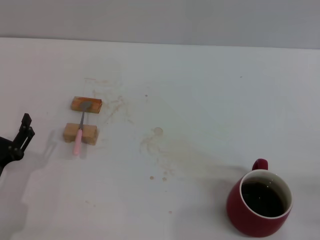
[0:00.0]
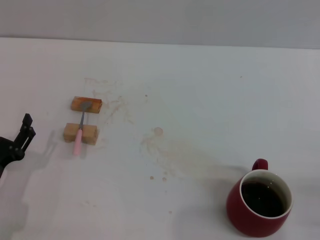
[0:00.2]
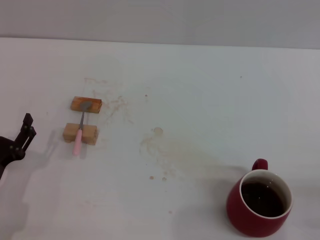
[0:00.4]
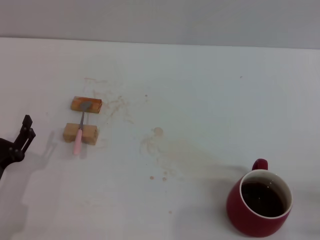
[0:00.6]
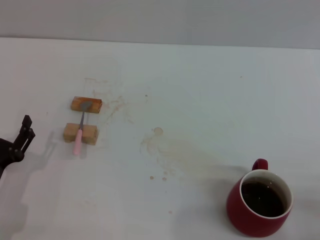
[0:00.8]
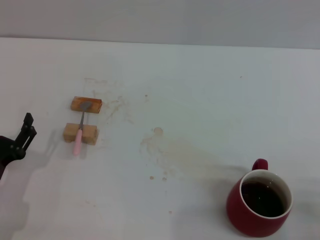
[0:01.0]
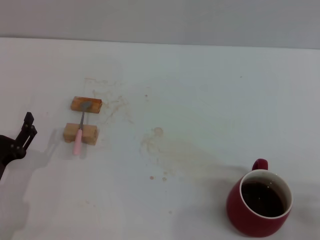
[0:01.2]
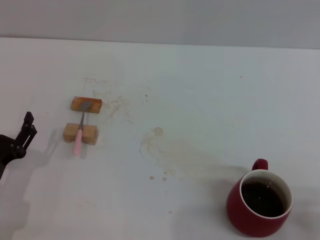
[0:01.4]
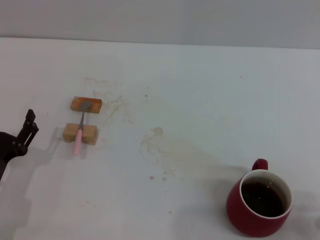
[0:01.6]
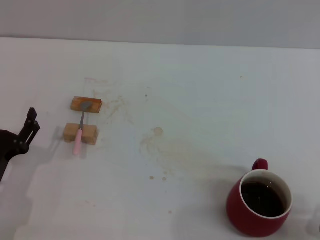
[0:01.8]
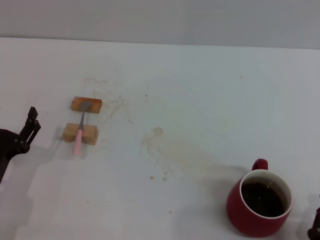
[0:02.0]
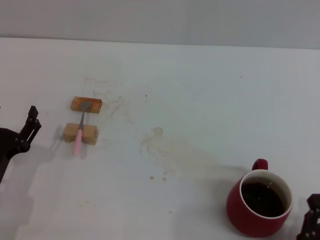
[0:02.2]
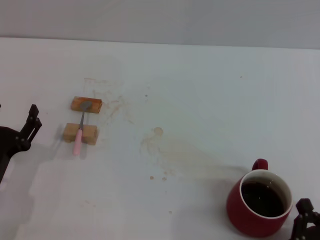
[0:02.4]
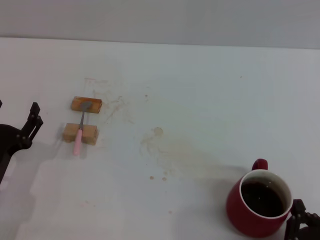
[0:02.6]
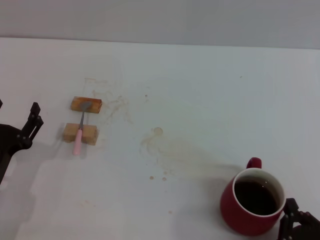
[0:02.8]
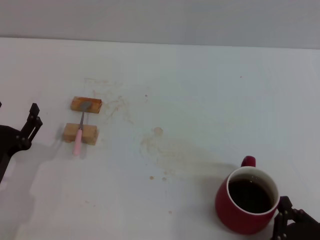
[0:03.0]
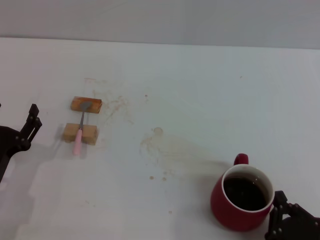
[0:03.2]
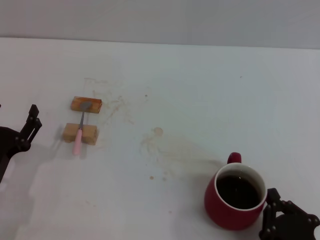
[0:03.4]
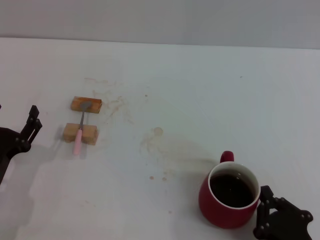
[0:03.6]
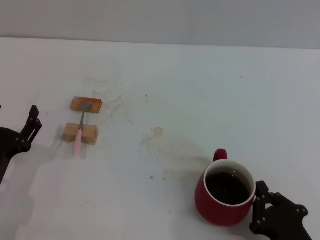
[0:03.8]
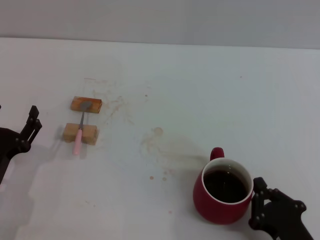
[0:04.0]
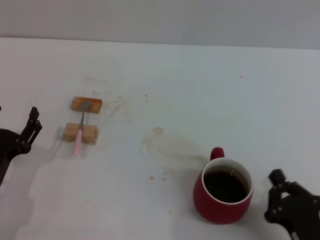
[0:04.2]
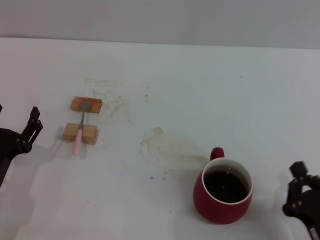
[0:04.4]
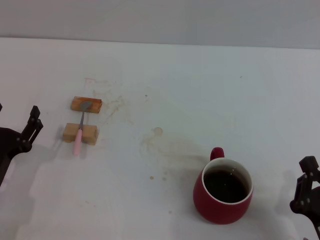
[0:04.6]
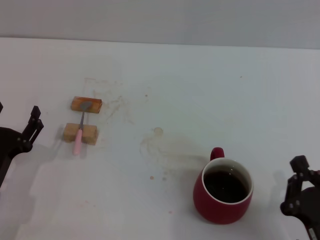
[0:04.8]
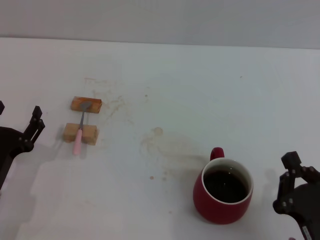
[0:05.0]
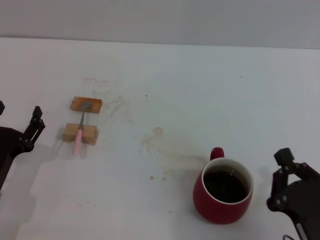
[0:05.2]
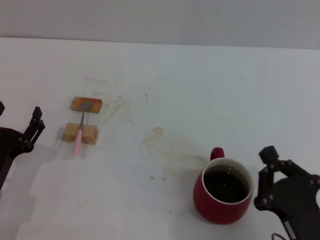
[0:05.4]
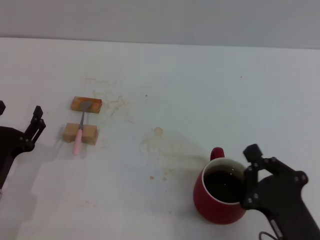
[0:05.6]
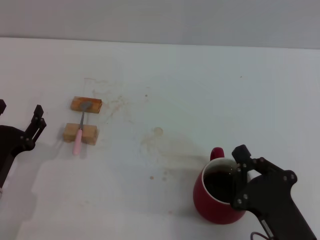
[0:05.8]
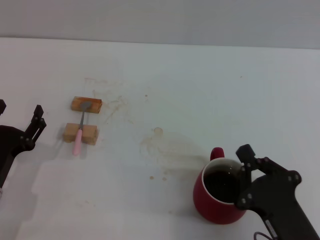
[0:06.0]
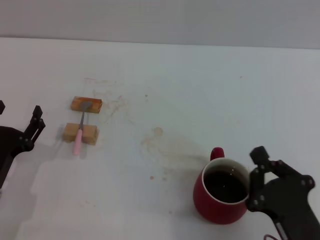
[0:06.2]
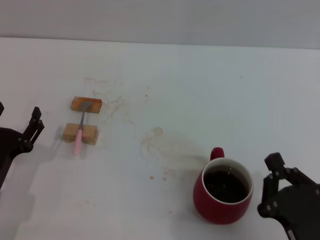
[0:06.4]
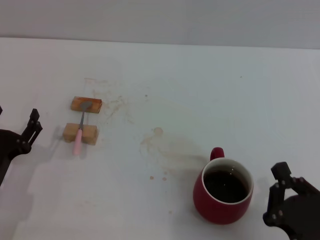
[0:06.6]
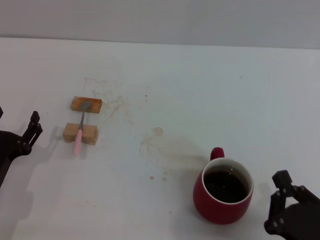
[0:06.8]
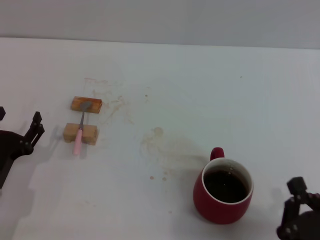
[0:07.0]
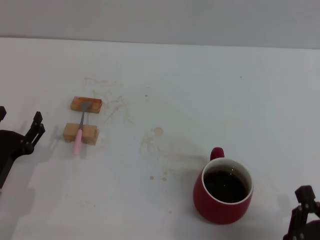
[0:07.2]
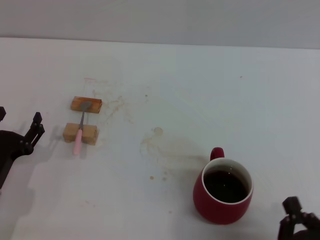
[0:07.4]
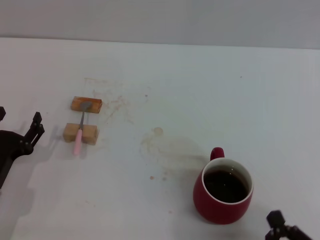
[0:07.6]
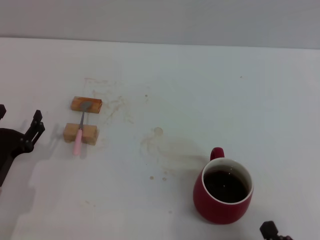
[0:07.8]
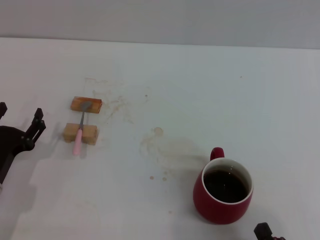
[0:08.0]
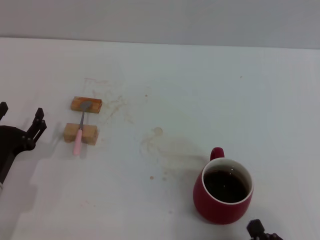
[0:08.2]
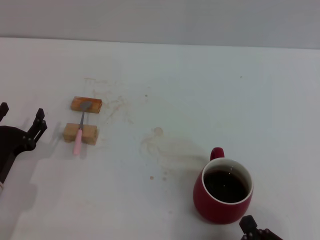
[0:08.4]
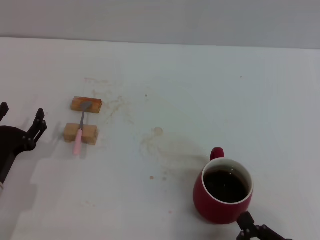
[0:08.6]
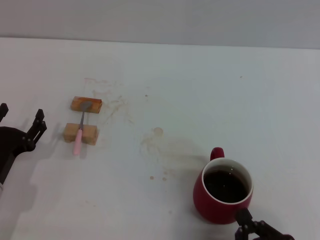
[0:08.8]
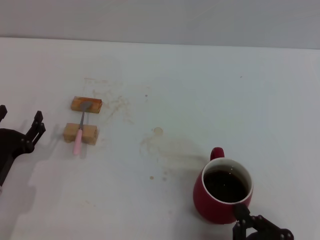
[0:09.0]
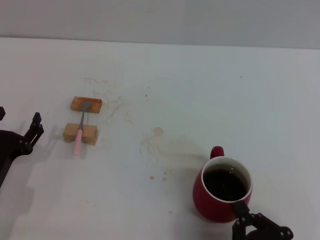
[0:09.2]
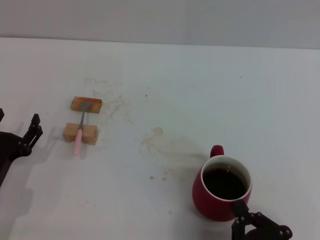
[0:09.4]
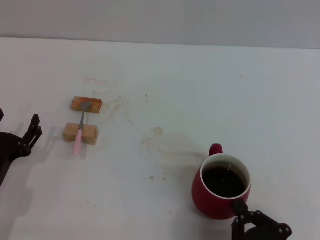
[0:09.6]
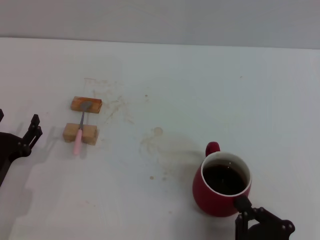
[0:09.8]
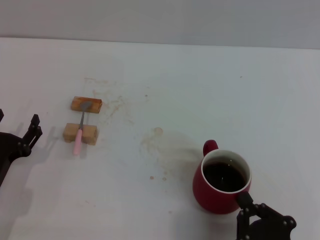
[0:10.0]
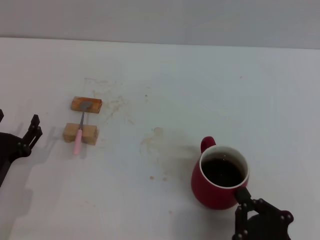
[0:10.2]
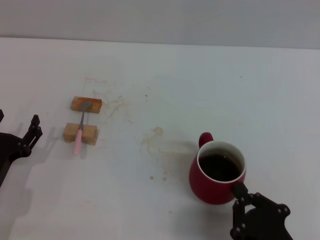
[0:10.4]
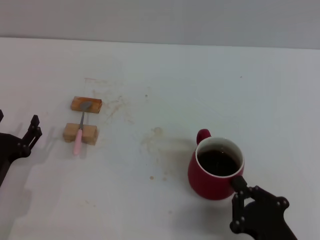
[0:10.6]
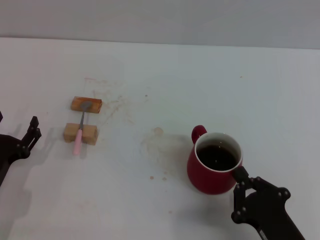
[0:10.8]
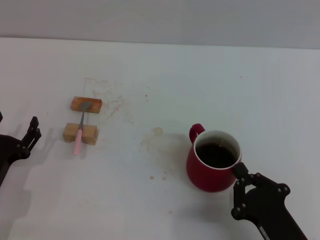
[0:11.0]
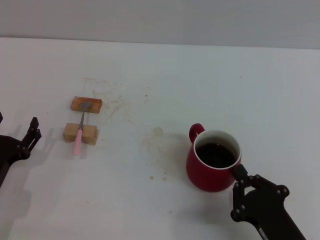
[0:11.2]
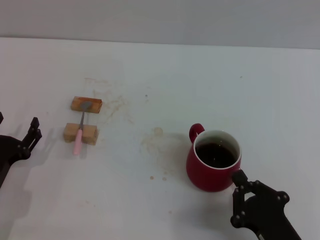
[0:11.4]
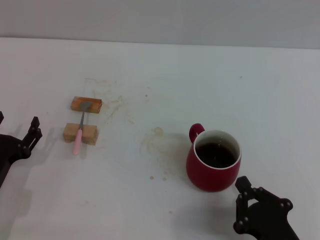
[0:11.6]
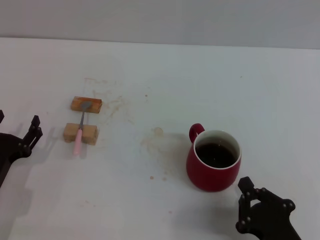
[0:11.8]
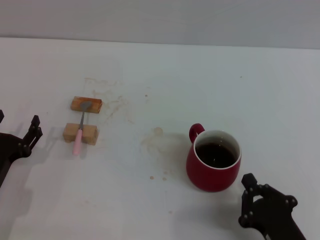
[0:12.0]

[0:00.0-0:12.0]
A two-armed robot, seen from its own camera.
Task of the whole recording: Move the red cup to the center, lift the pink spoon, stir it three times in the cup, and put the spoon into the cup.
0:00.0 to 0:01.6: The right gripper shifts approximately 10 cm to the left and backward.
0:01.6 to 0:03.0: The grippers stay close to where they were, moving slightly.
0:03.0 to 0:04.4: The grippers make only small movements.
0:04.4 to 0:06.0: The right gripper changes place by about 5 cm.
0:06.0 to 0:07.6: The right gripper travels backward by about 10 cm.
0:07.6 to 0:10.4: The grippers make only small movements.
0:10.4 to 0:12.0: There are only small adjustments of the grippers.

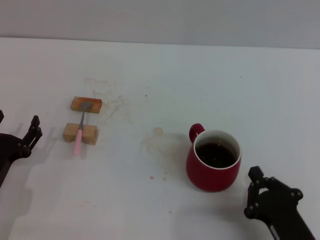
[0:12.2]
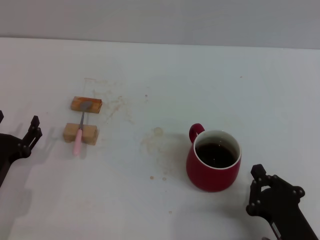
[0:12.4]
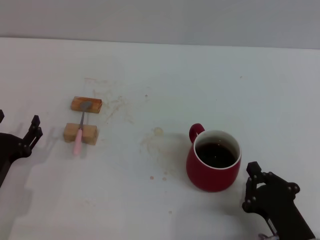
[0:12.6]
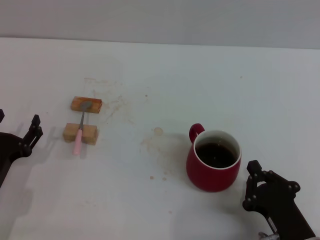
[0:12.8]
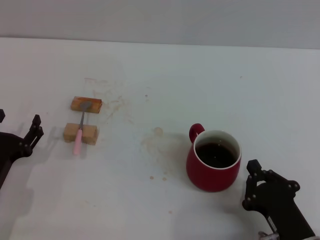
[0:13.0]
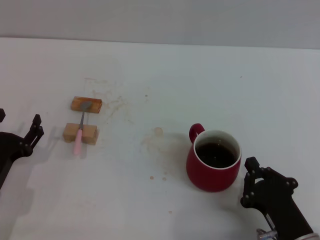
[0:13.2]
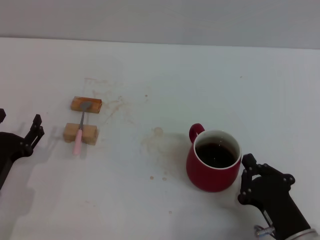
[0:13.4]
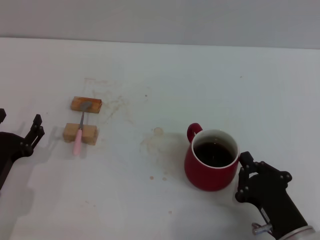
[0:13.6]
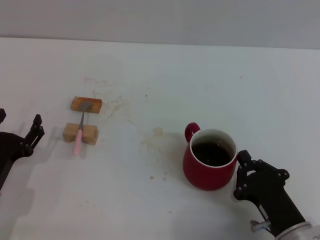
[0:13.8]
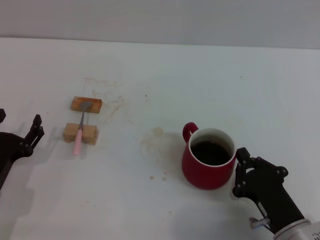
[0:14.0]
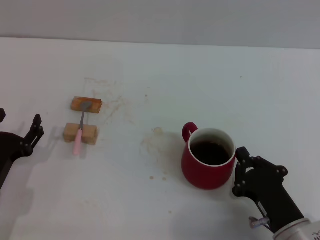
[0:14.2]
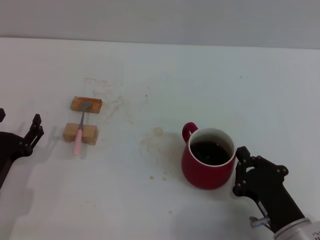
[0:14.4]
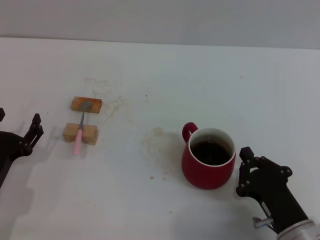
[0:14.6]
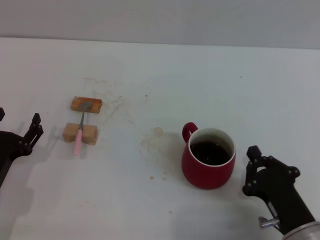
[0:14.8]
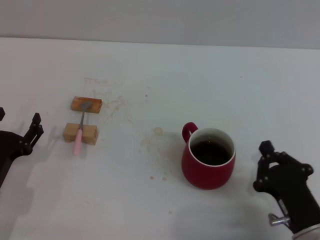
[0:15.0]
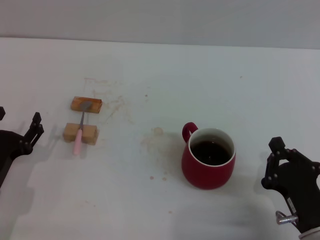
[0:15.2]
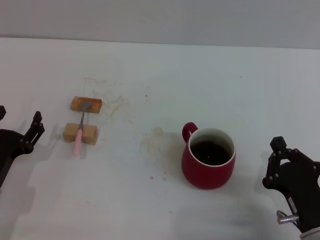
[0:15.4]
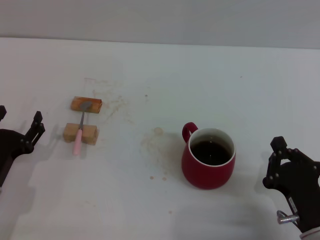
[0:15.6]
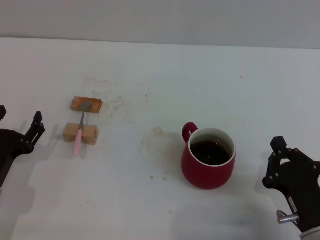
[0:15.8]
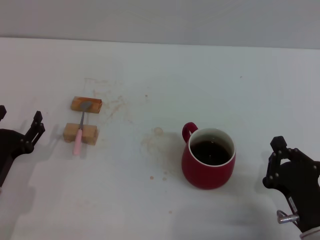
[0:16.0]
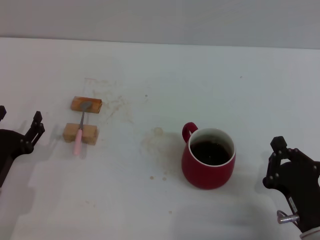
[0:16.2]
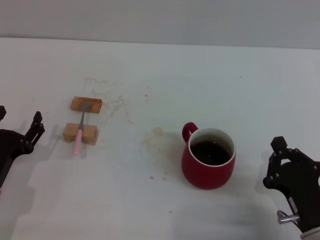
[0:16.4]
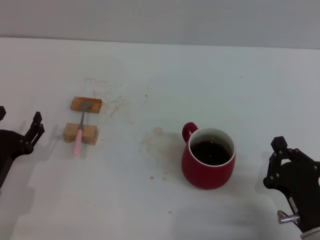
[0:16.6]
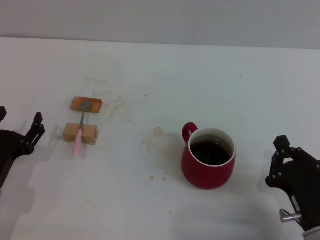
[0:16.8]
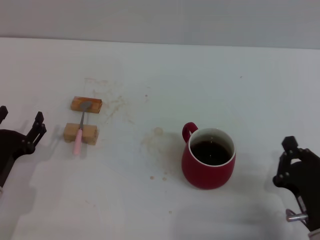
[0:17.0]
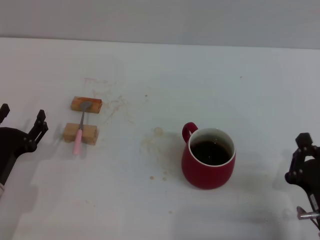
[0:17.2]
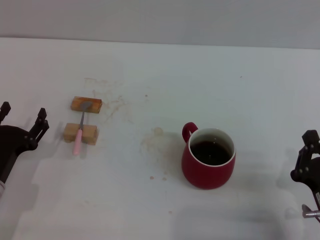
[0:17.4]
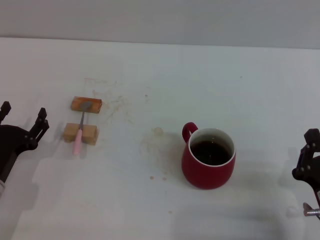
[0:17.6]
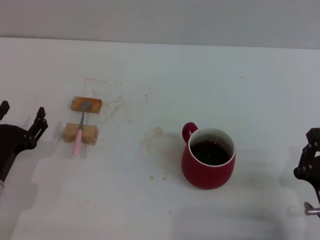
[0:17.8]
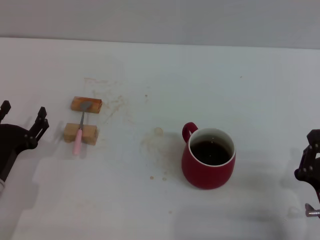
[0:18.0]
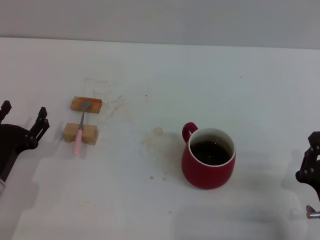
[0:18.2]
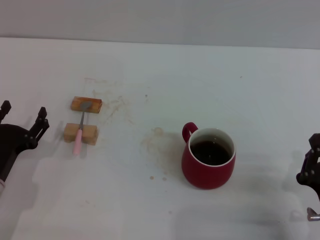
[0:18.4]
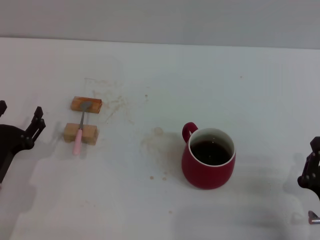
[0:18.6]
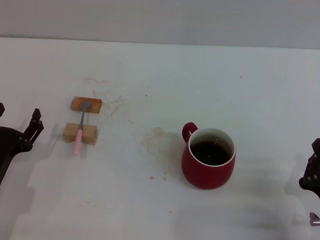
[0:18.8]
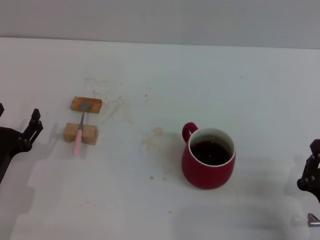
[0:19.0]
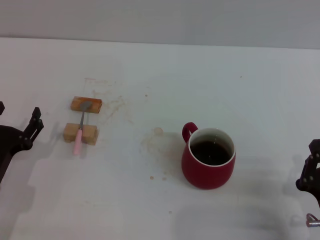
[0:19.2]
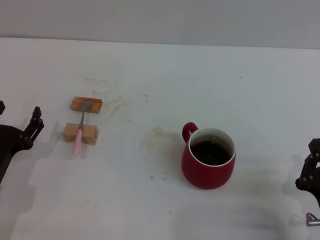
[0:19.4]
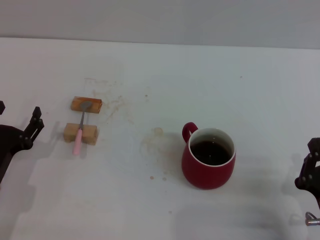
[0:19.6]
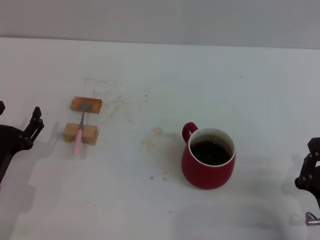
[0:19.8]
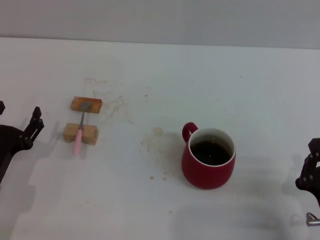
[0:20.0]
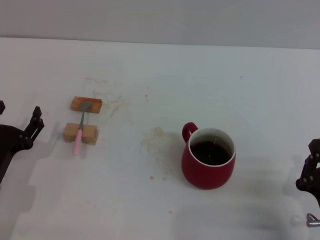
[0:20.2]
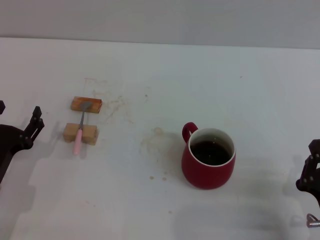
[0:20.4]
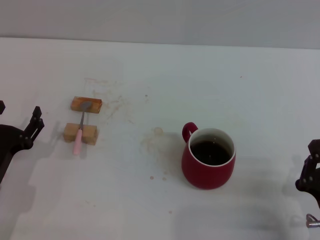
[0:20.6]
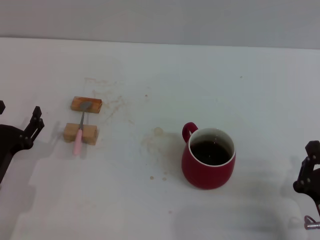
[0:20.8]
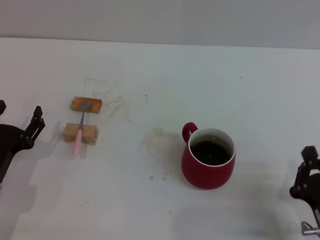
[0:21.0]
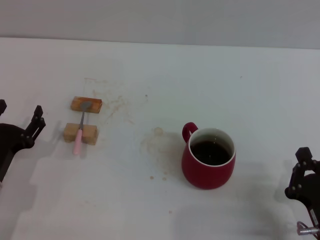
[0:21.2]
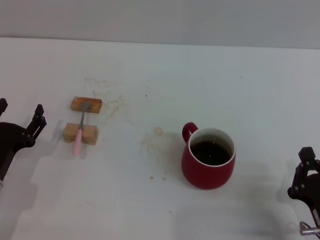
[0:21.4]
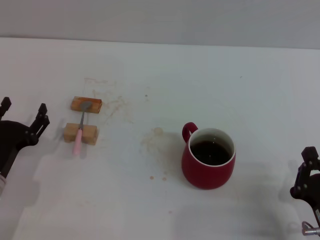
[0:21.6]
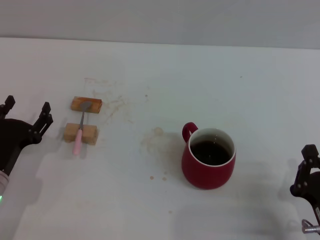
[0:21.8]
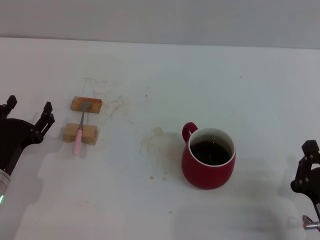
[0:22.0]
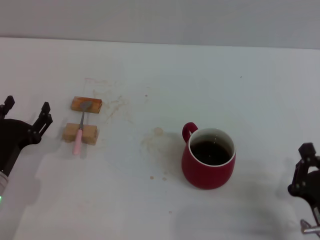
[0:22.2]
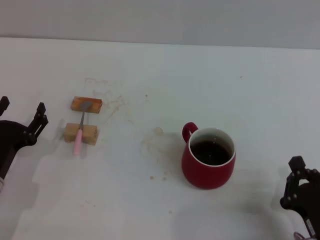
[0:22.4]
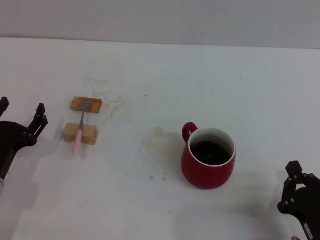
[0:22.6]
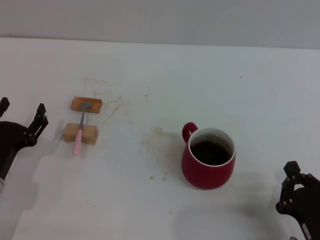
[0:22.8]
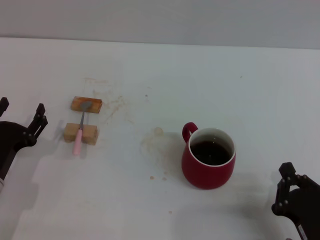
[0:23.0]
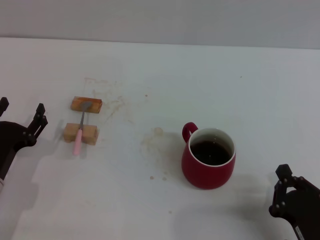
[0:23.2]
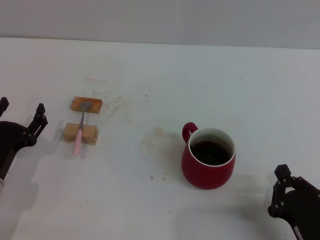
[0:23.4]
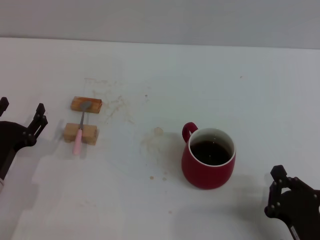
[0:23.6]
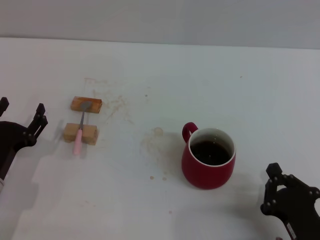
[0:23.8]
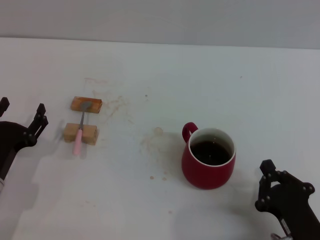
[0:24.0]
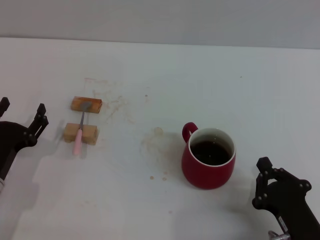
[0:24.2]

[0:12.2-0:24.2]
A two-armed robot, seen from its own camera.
Task of the whole recording: Move the red cup to the center, lift the pink spoon, stir it three times in the cup, and put the spoon into the cup.
0:12.2 to 0:15.2: The grippers stay close to where they were, moving slightly.
0:15.2 to 0:16.6: The two grippers keep their place.
0:16.6 to 0:18.2: There are only small adjustments of the grippers.
0:18.2 to 0:19.8: The two grippers keep their place.
0:19.8 to 0:21.2: The two grippers keep their place.
0:21.2 to 0:24.2: The grippers stay close to where they were, moving slightly.
